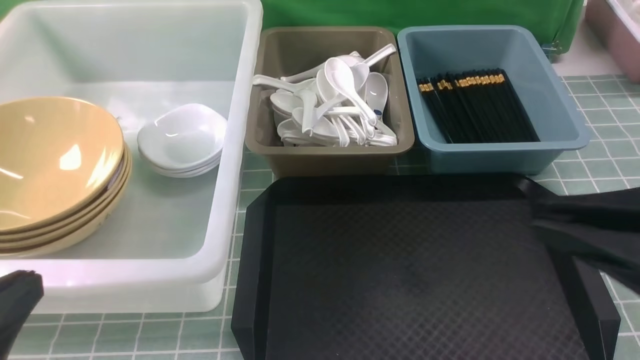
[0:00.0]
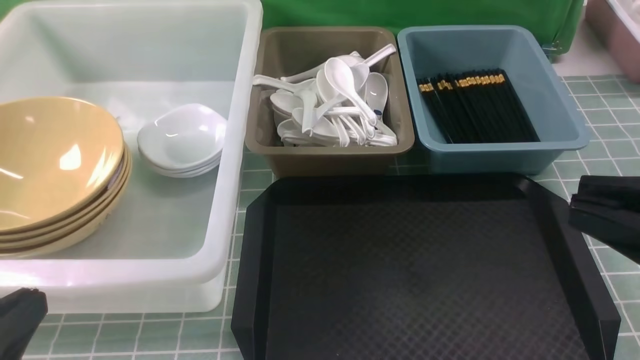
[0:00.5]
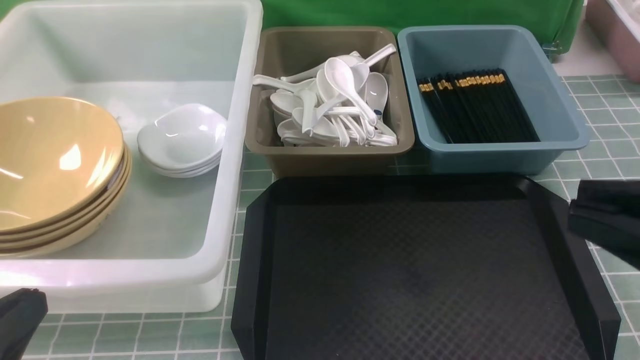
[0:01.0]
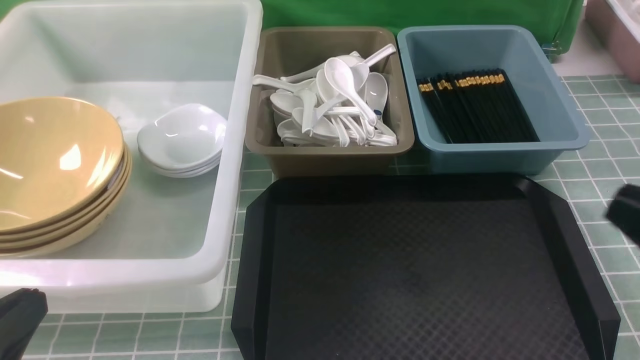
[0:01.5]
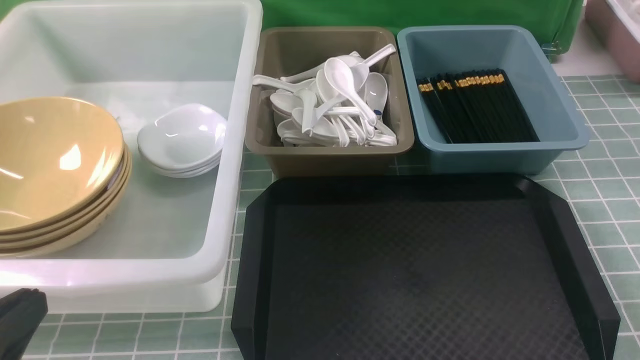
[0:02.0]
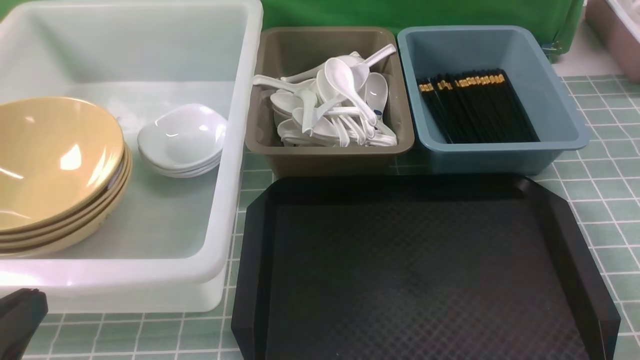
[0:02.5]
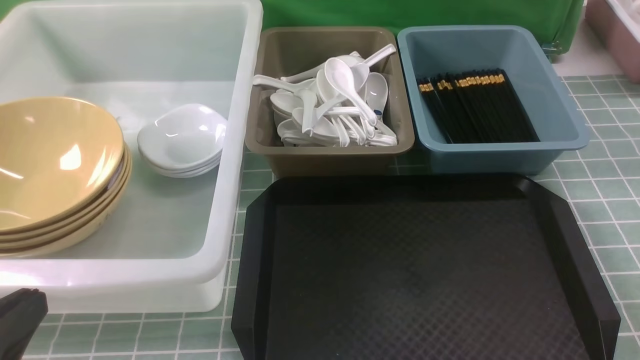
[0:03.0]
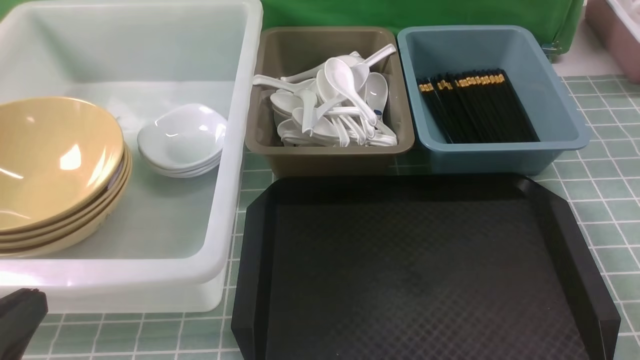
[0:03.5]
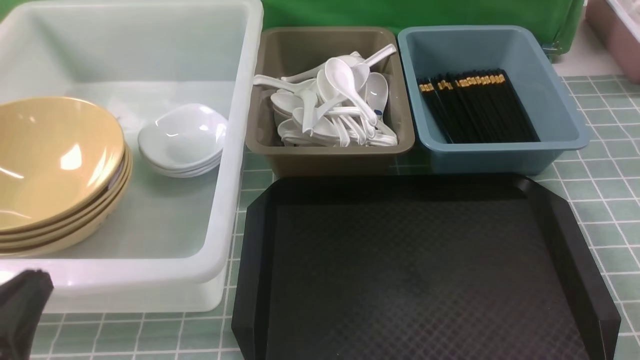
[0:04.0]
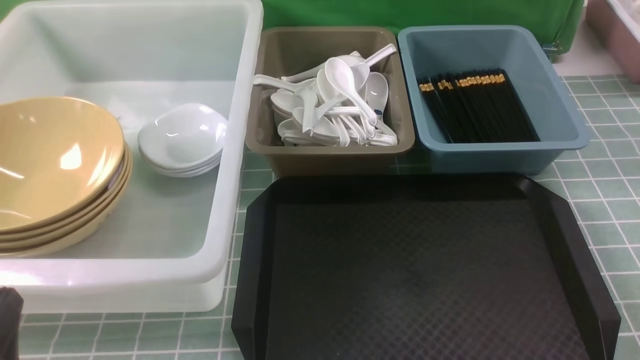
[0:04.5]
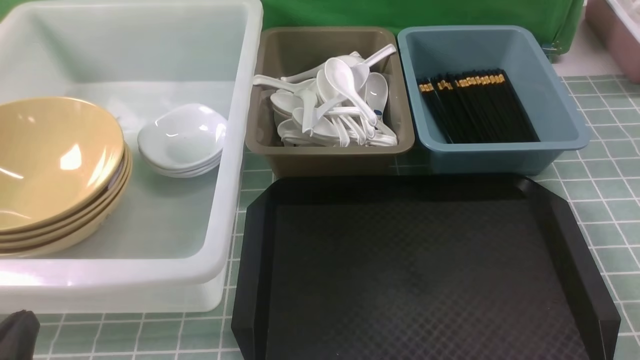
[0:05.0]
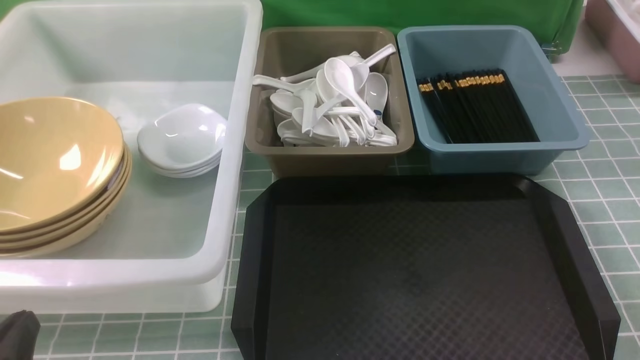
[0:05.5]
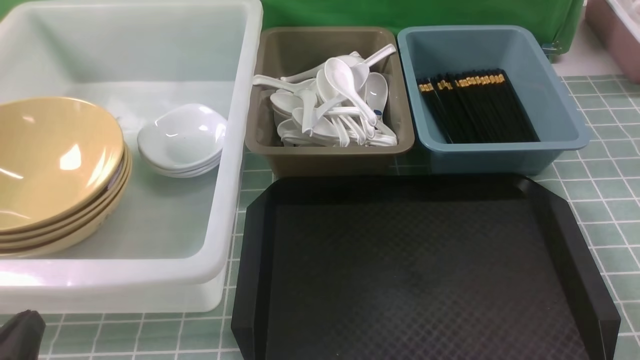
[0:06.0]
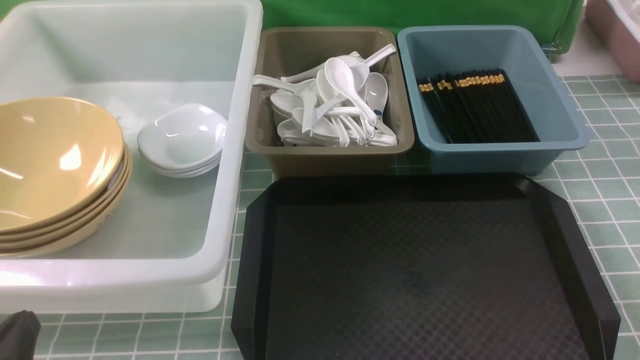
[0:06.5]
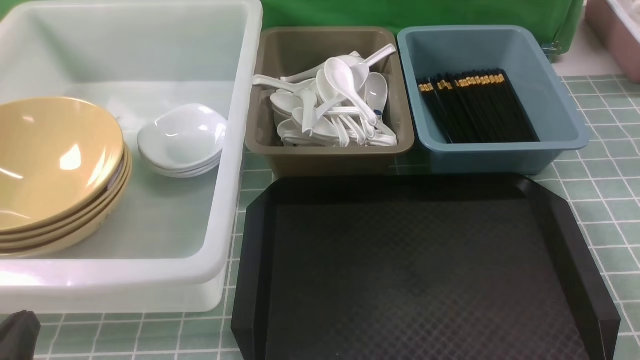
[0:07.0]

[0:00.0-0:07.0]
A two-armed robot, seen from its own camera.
Task of the whole recording: on blue table put chopsticks spoon bowls plates into blue grey white boxes.
0:00.0 to 0:02.0: The right gripper moves downward and to the right, some 20 cm.
0:03.5 to 0:05.0: The left gripper travels downward by roughly 10 cm.
0:05.0 to 0:07.0: Both grippers stay put.
